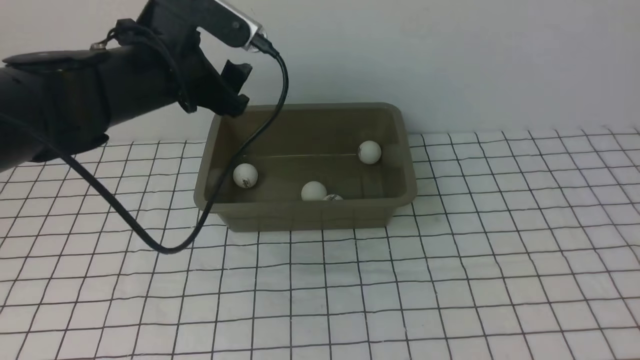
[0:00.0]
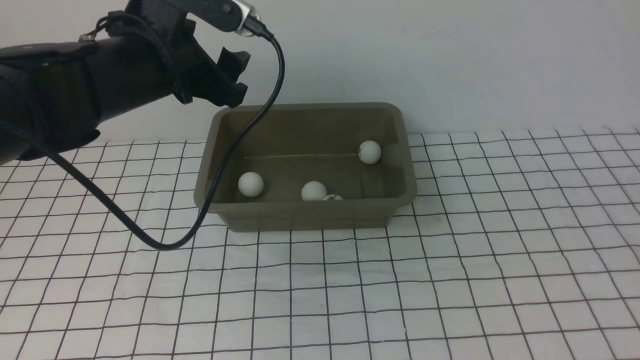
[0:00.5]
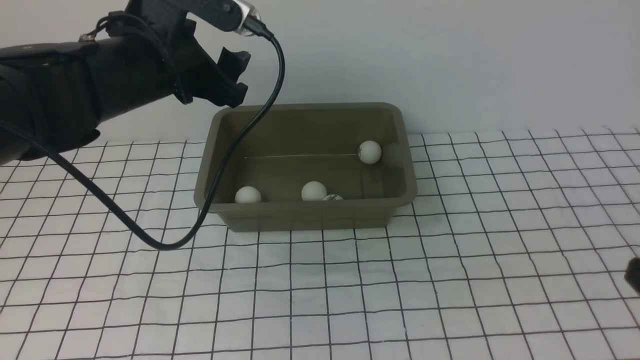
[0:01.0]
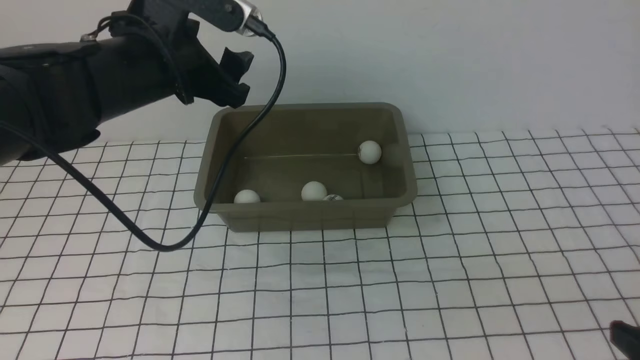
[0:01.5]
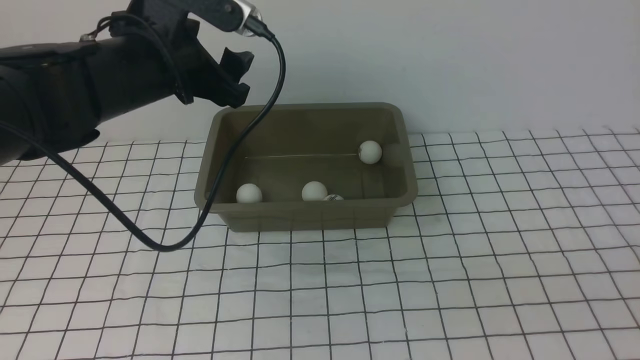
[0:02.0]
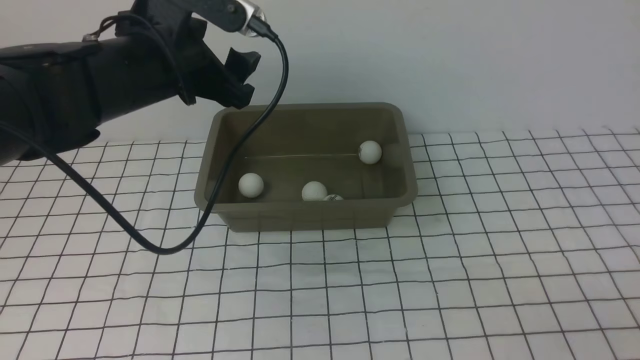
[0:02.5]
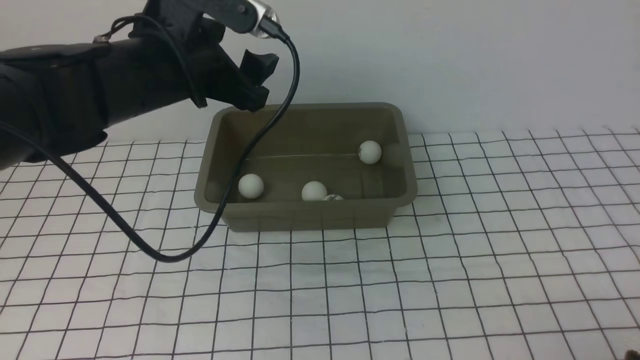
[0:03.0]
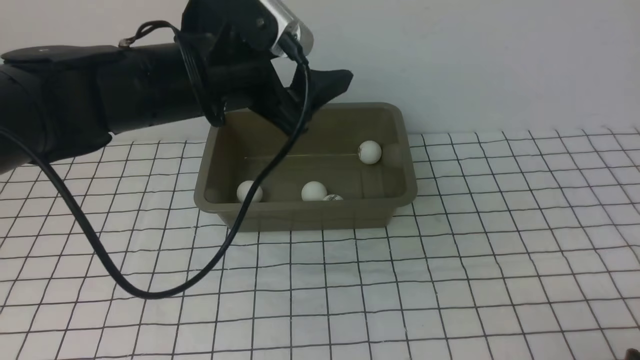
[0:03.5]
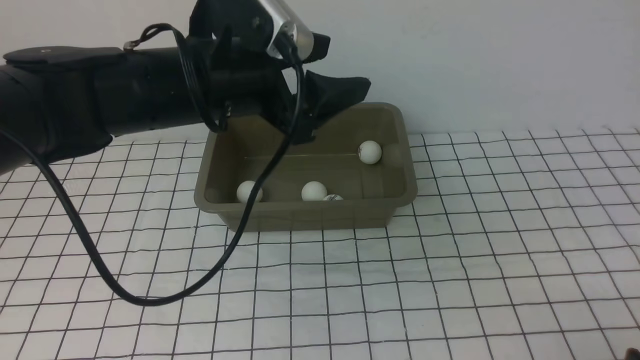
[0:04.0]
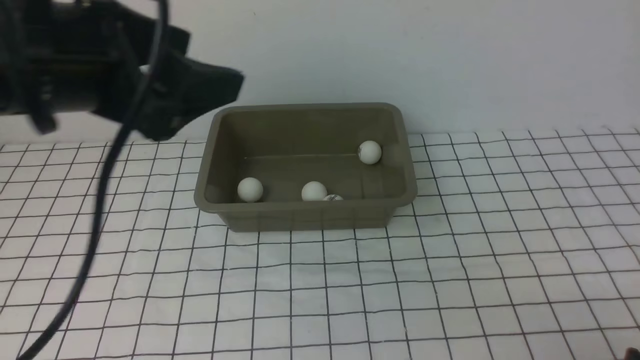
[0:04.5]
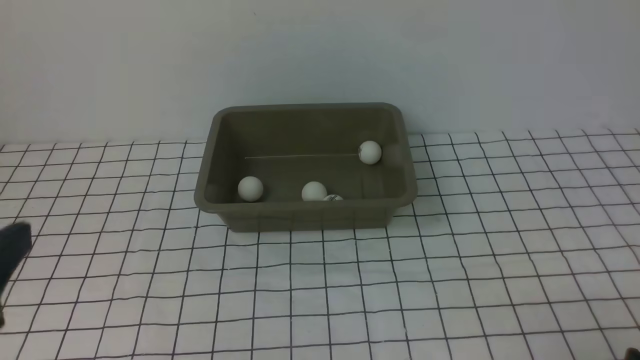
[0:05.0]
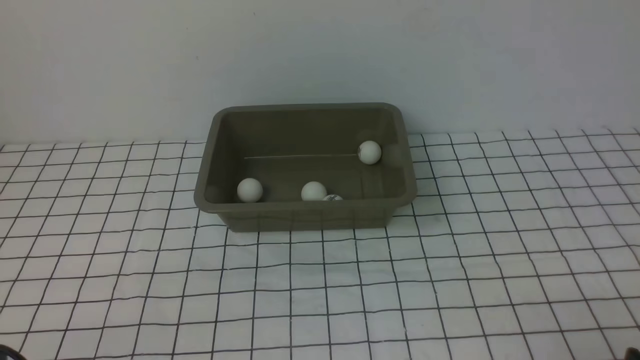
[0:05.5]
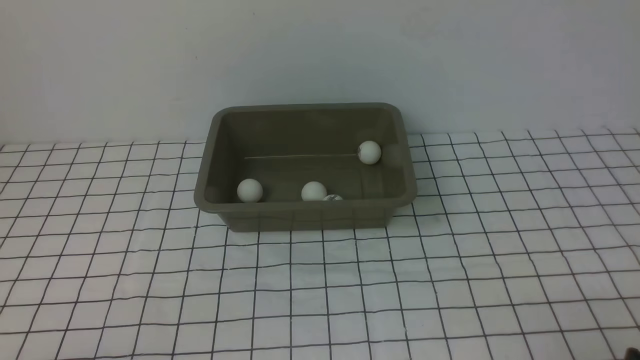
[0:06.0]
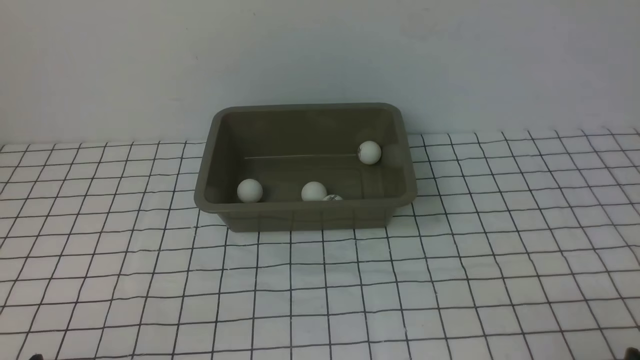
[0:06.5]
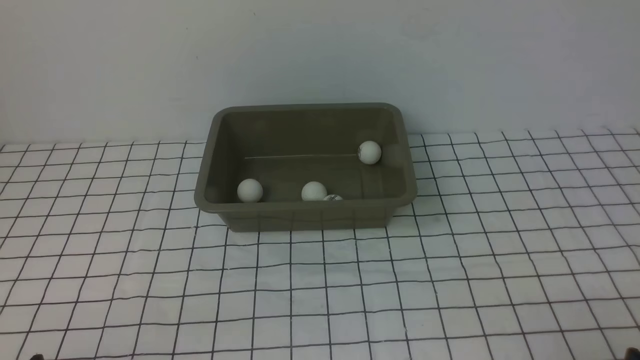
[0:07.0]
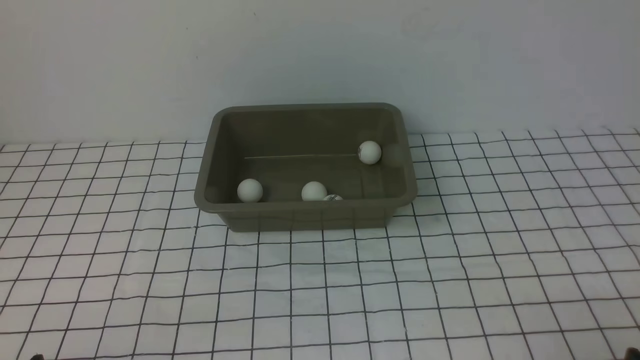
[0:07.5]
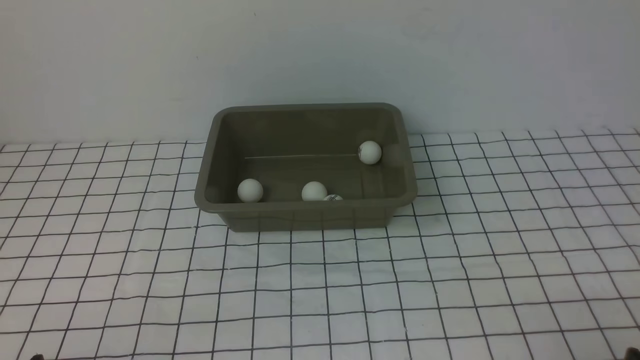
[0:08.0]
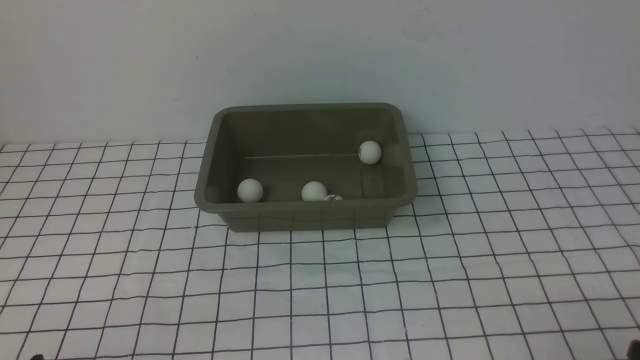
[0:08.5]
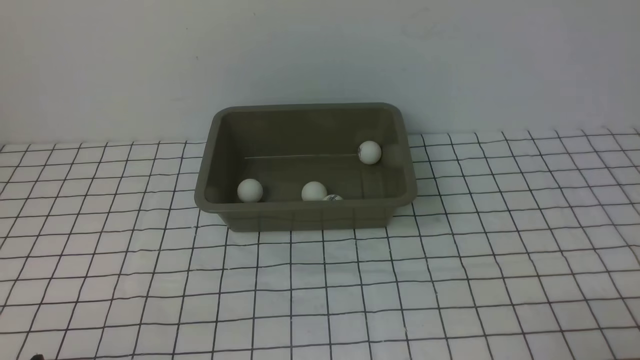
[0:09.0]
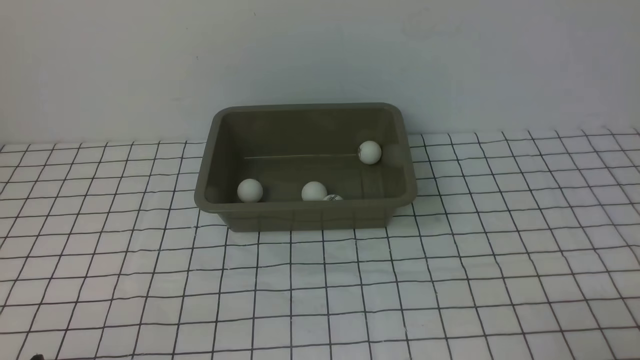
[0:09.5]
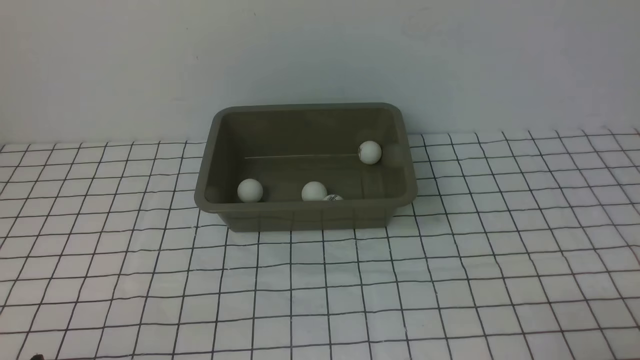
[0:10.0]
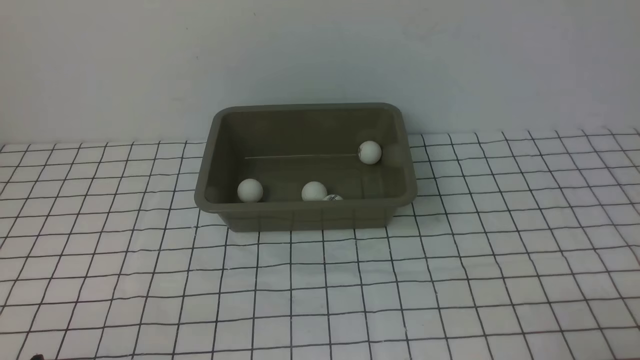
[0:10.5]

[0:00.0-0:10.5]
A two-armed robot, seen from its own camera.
0:00.0 to 0:02.0: The right gripper is displaced downward by some 15 cm.
0:02.0 to 0:04.0: The left gripper travels to the right by some 5 cm; the right gripper moves downward, some 5 cm.
0:04.0 to 0:06.5: The left gripper shifts about 35 cm backward, downward and to the left.
0:06.5 to 0:08.5: The two grippers keep their place.

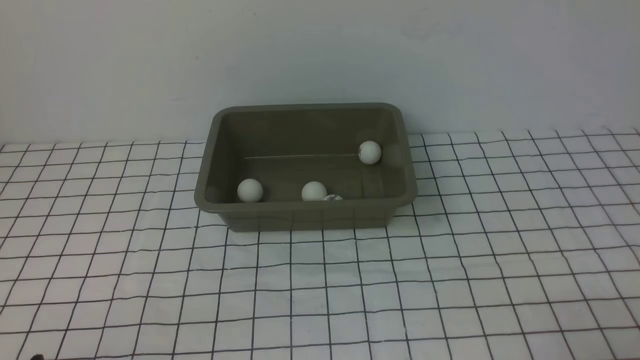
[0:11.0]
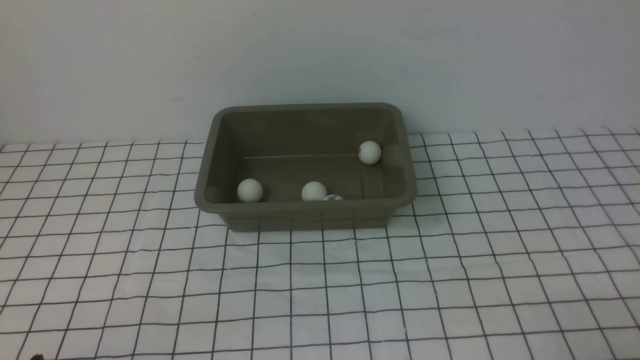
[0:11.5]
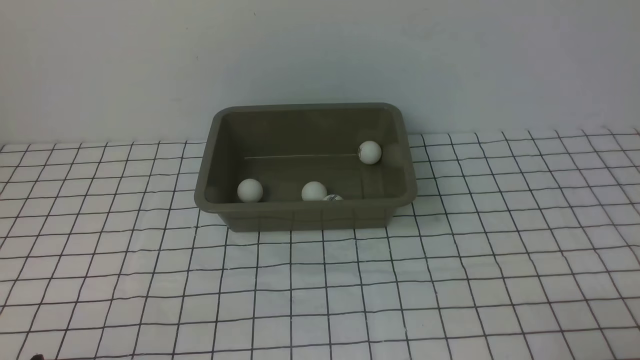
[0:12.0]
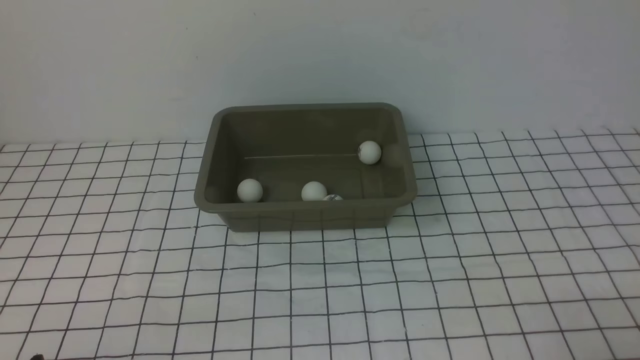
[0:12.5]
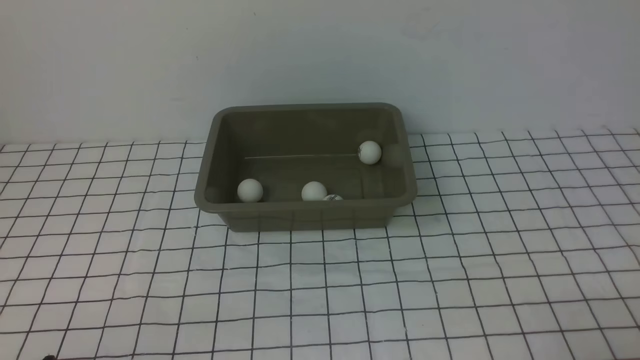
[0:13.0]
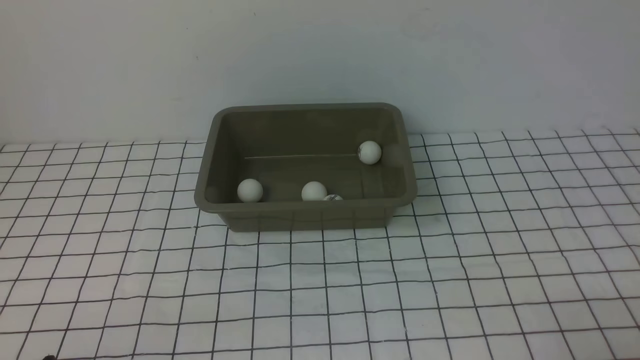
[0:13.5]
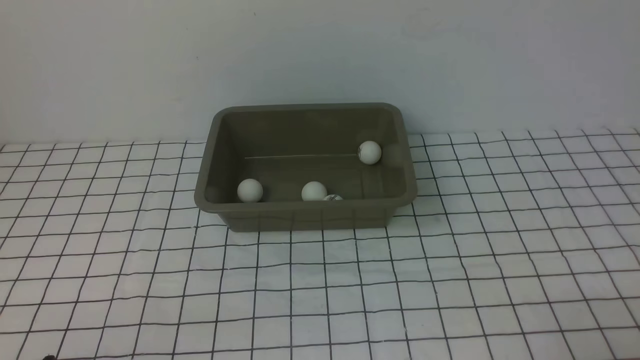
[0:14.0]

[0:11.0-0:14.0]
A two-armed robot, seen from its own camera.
0:11.0 to 0:14.0: Neither gripper changes place.

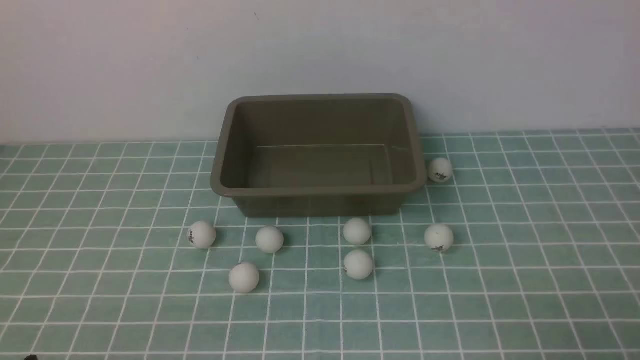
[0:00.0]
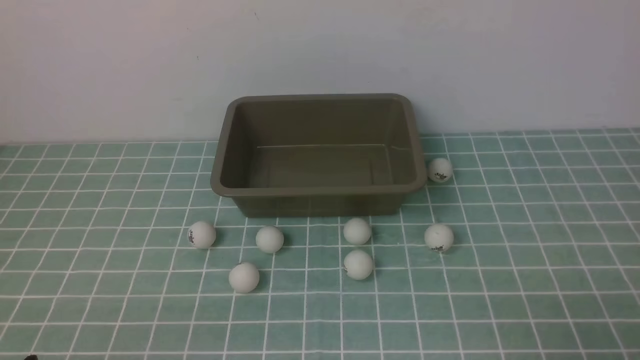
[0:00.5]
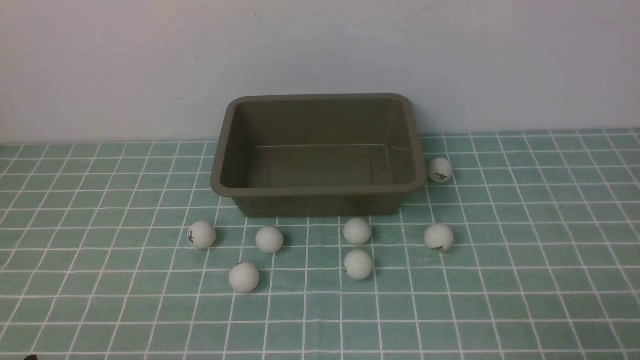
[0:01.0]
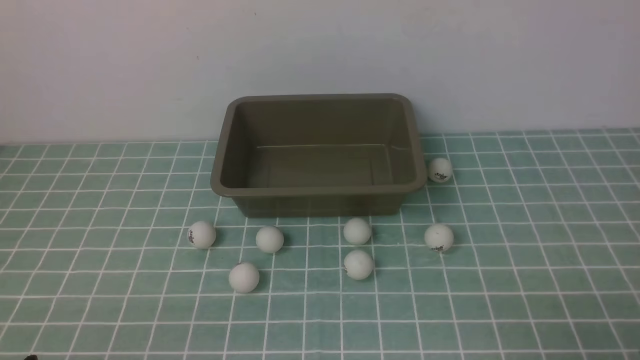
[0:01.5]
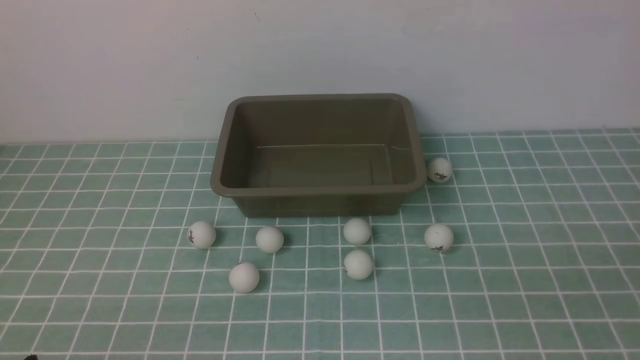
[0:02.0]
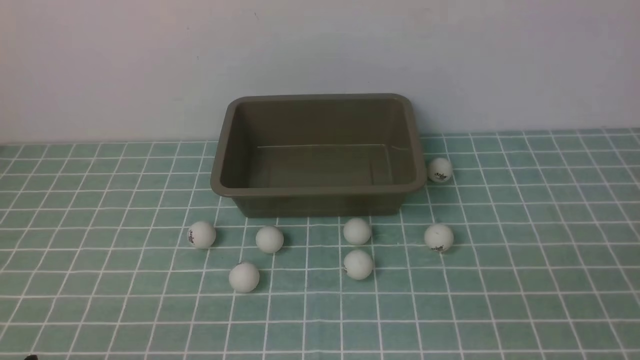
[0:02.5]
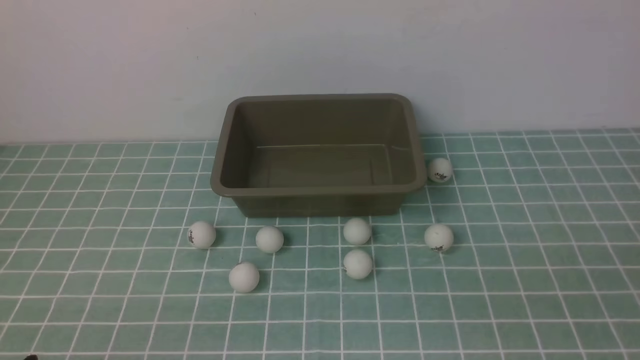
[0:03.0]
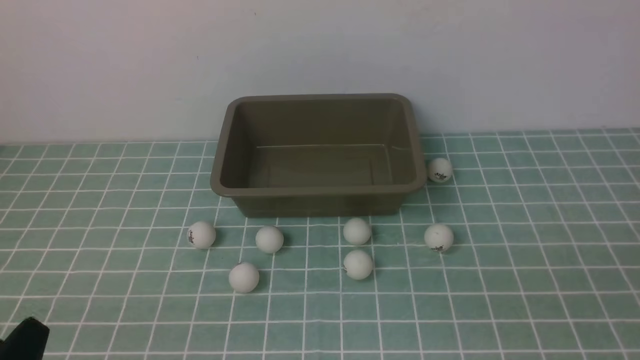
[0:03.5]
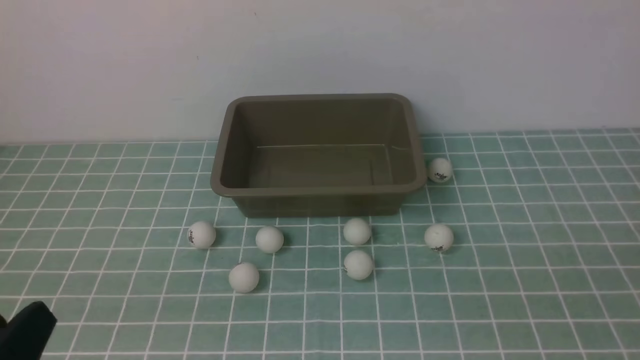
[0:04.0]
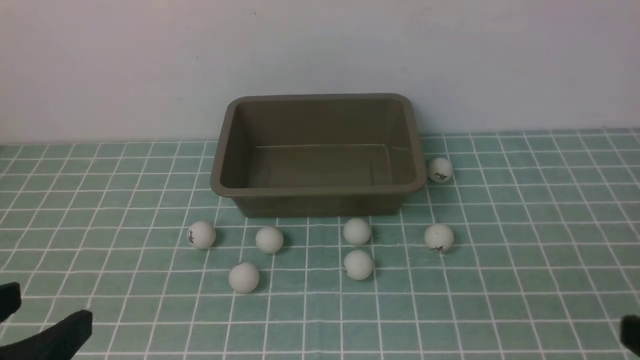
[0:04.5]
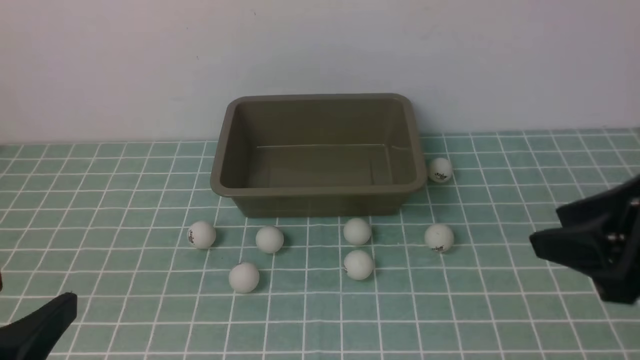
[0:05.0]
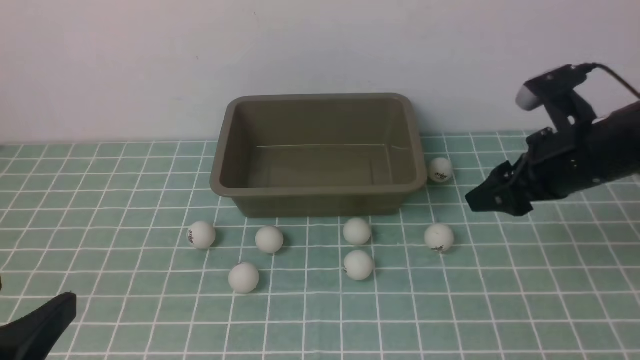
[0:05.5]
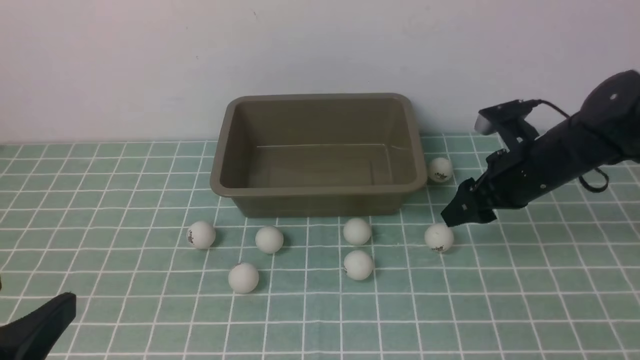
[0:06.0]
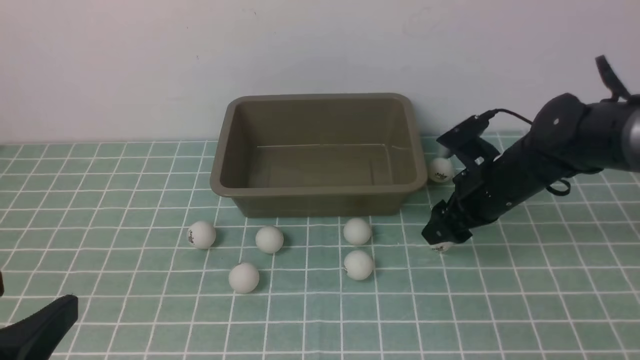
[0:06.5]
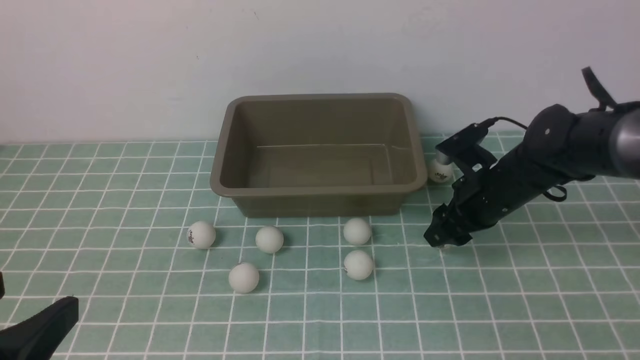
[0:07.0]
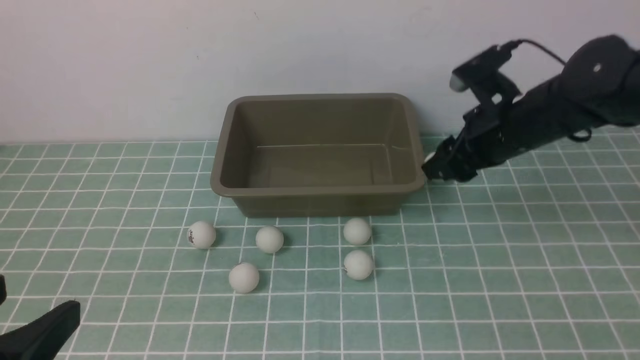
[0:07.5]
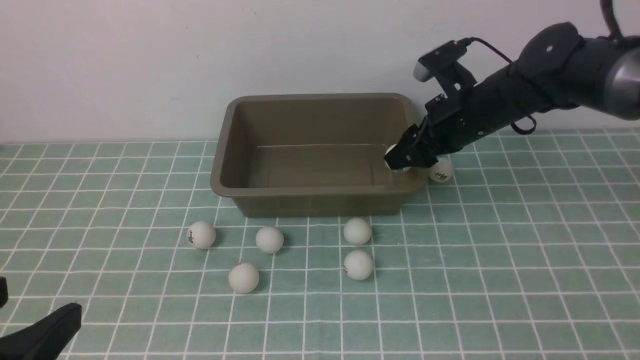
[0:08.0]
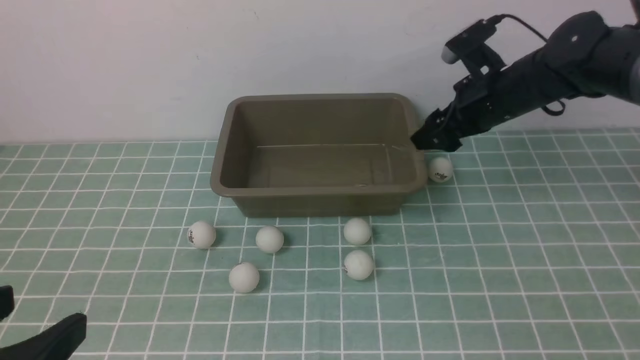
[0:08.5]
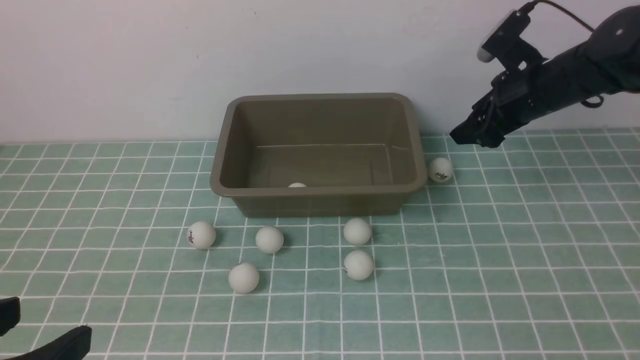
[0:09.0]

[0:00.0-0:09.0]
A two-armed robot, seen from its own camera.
Step, 0:00.0 to 0:07.0: use the right arm to clamp the table tennis ball closest to it.
0:02.0 to 0:04.5: The left gripper travels upward by approximately 15 cm.
0:04.5 to 0:07.0: The right gripper is displaced forward and downward by about 35 cm.
0:07.0 to 0:09.0: The right gripper heads forward and upward, covering roughly 10 cm, and opens up.
